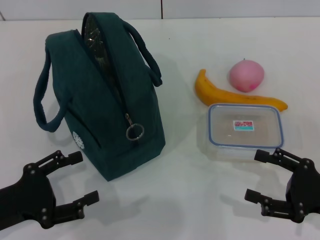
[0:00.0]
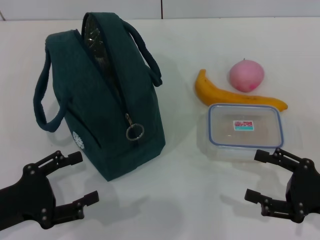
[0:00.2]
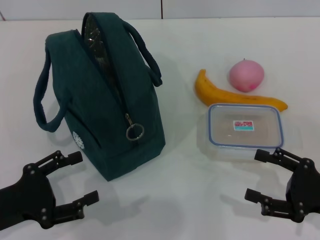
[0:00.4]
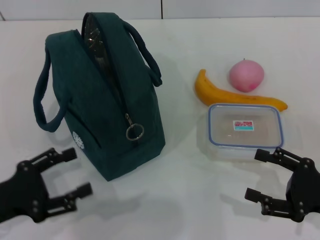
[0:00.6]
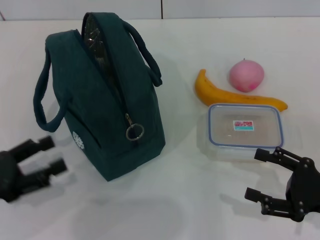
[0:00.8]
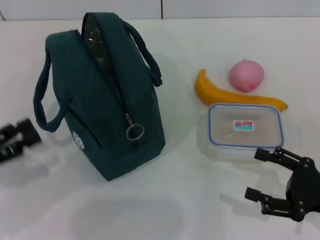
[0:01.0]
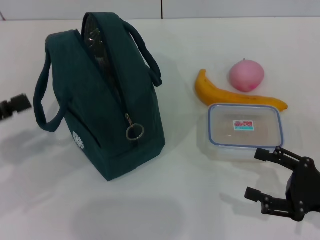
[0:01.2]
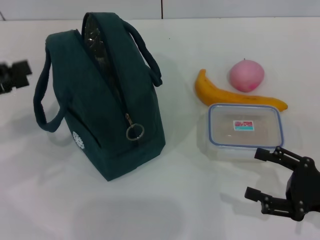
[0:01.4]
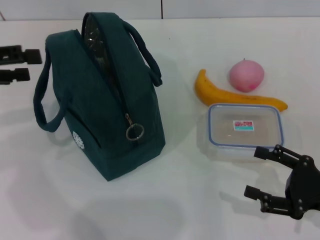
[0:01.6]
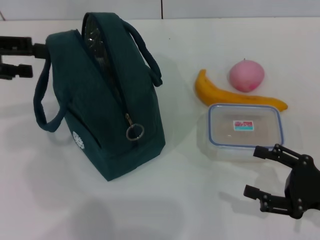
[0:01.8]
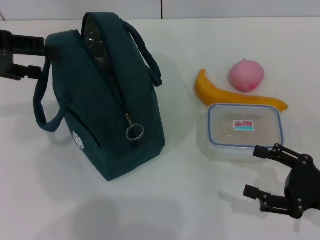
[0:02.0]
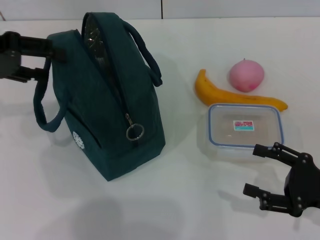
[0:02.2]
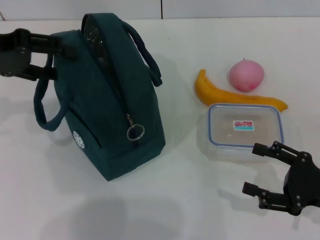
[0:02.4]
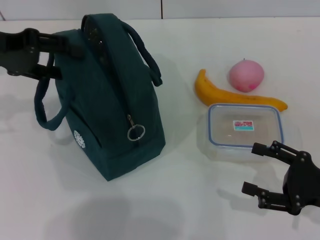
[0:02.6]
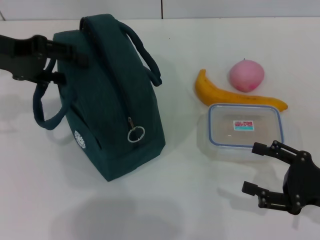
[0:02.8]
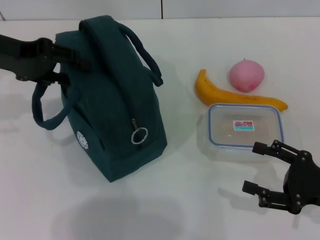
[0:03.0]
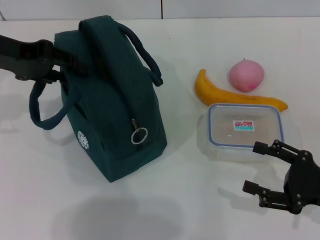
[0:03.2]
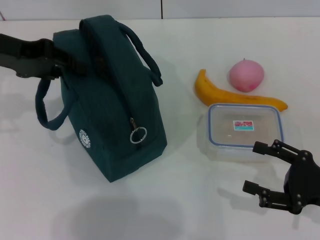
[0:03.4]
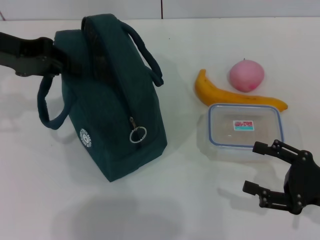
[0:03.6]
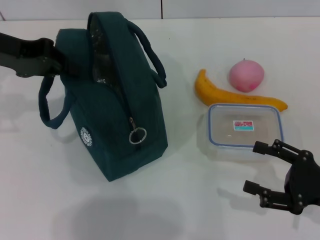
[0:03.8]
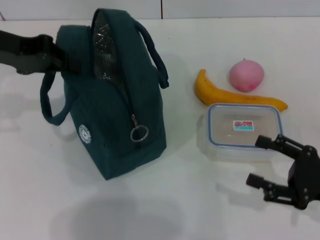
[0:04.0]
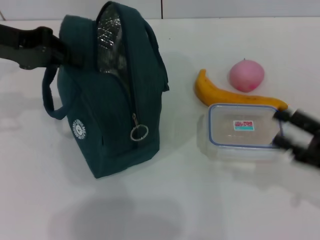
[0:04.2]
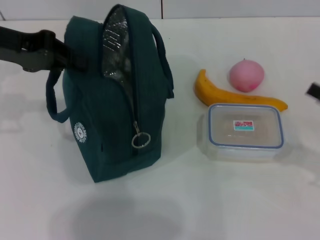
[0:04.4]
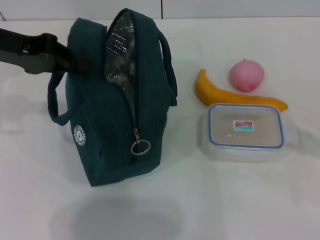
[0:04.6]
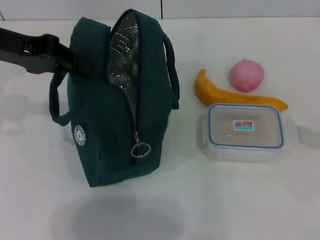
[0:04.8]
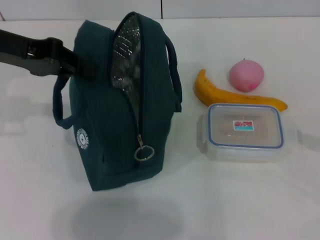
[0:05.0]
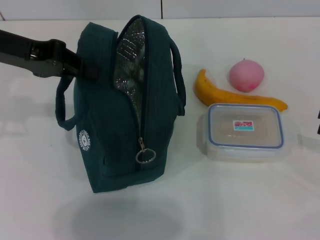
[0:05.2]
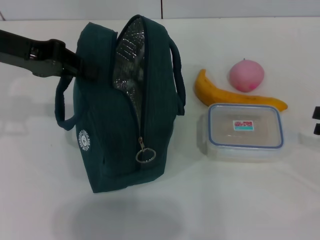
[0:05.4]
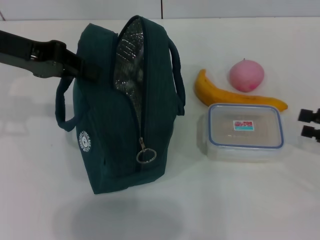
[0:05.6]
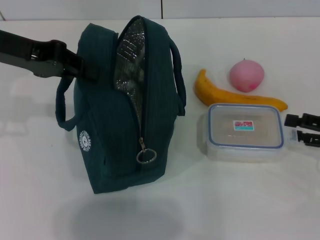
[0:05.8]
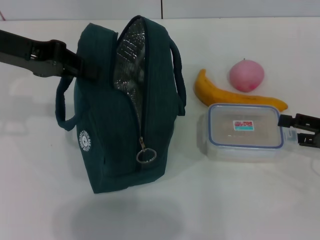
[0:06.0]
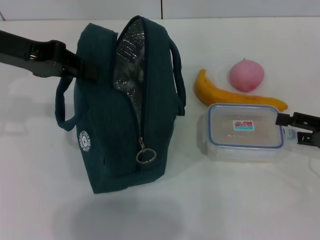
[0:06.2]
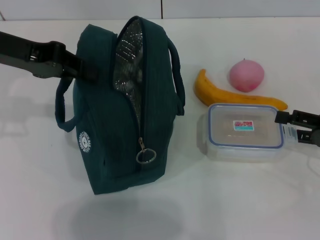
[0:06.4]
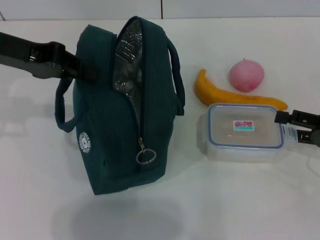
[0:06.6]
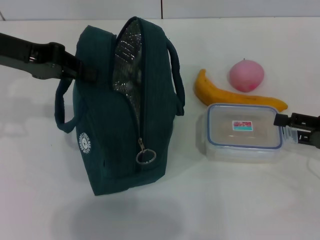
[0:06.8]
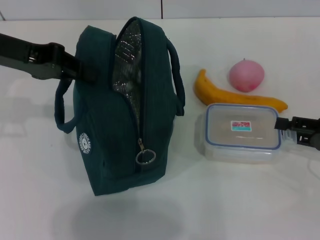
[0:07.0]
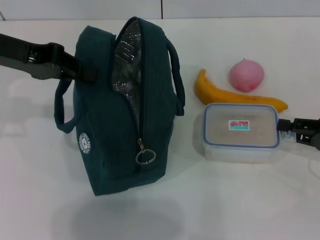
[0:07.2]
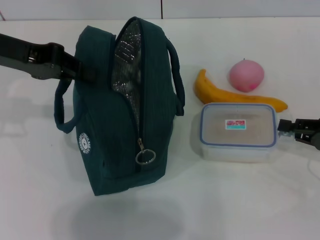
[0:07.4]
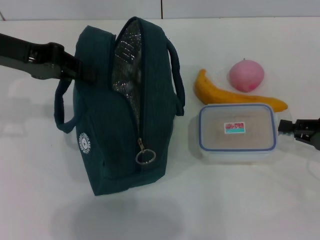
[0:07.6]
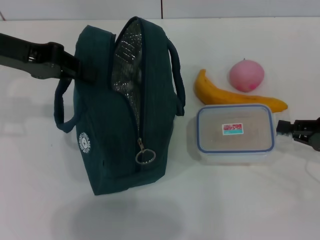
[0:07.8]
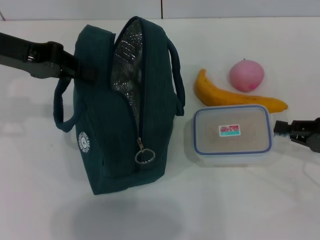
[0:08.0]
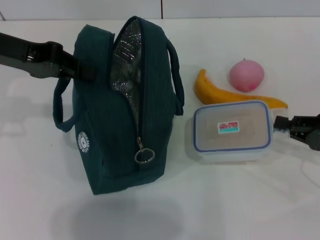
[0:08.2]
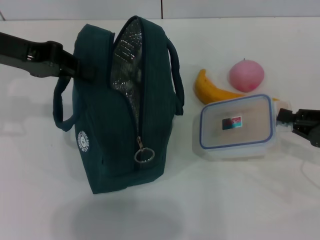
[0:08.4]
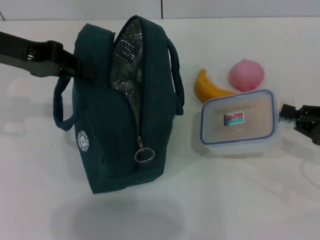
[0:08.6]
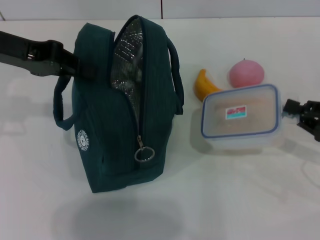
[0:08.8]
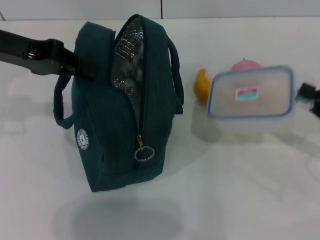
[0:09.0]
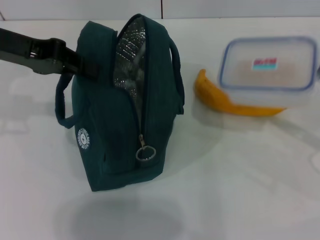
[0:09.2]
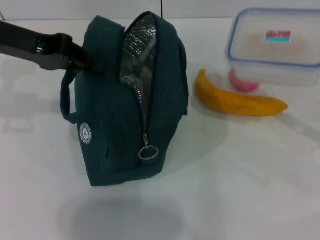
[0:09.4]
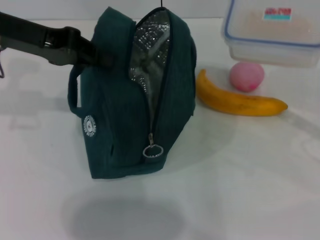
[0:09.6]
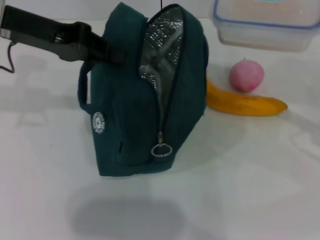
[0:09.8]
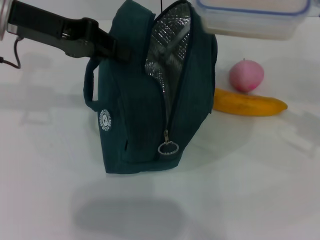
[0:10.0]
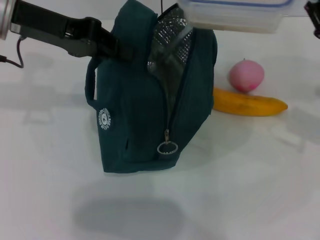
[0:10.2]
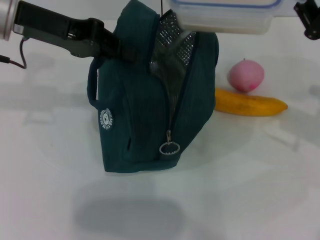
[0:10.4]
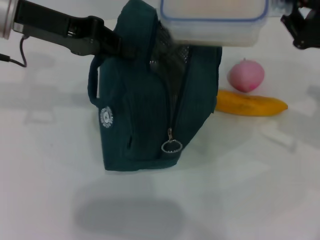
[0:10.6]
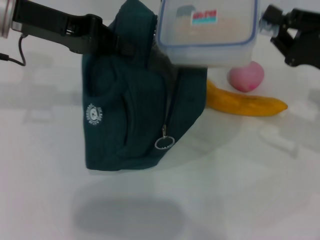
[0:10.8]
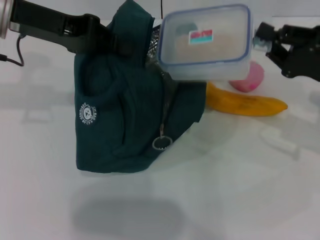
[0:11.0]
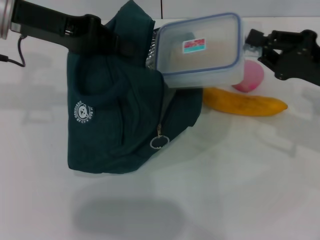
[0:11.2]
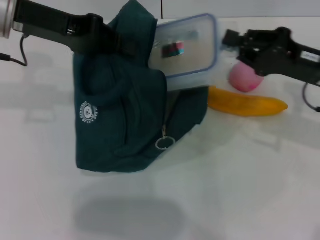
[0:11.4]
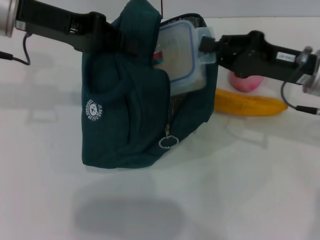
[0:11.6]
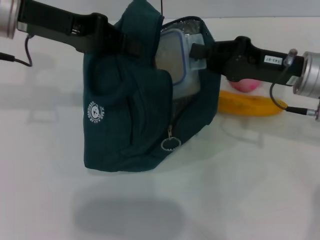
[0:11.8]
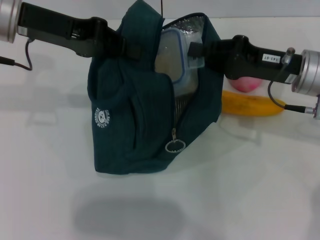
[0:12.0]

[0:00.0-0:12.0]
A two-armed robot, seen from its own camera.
Step, 0:00.0 to 0:03.8: Hold the lunch bag with your left hand.
Step, 0:04.0 to 0:07.6: Pick up the lunch box with your right hand.
0:00.0 to 0:01.6: The left gripper is displaced upward and forward by roughly 20 cm.
0:01.6 to 0:03.0: The left gripper is displaced to the right and forward by some 10 cm.
0:03.0 to 0:04.4: The right gripper goes roughly 5 cm upward. Meanwhile the left gripper closes up.
0:04.4 to 0:06.0: The right gripper is displaced forward by about 5 cm.
0:06.0 to 0:07.6: The right gripper closes.
0:09.0 to 0:10.4: The left gripper shifts by some 5 cm. Meanwhile the right gripper shifts approximately 10 cm upward, forward and to the left.
0:10.4 to 0:12.0: The right gripper travels to the left by about 10 cm.

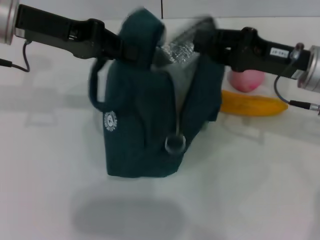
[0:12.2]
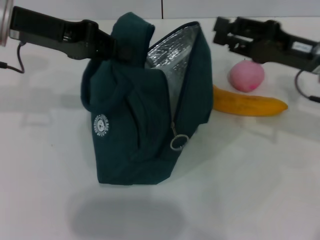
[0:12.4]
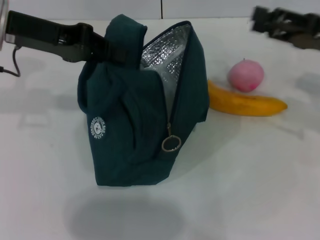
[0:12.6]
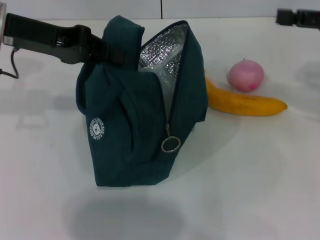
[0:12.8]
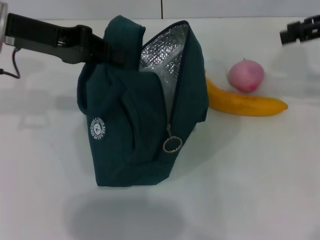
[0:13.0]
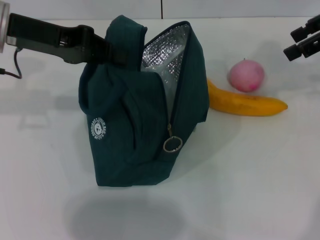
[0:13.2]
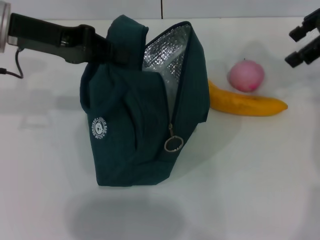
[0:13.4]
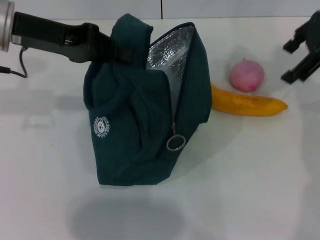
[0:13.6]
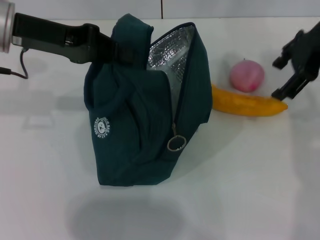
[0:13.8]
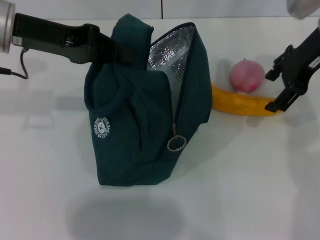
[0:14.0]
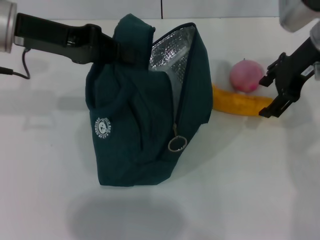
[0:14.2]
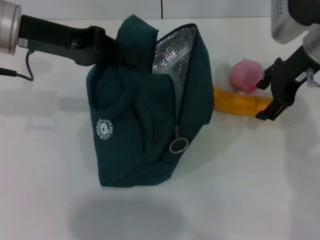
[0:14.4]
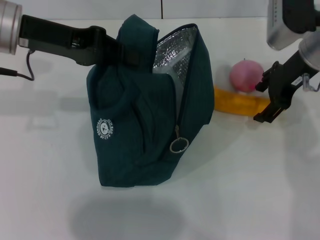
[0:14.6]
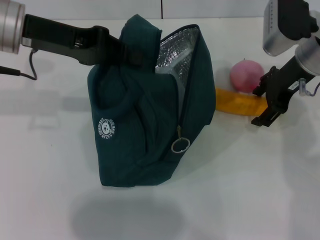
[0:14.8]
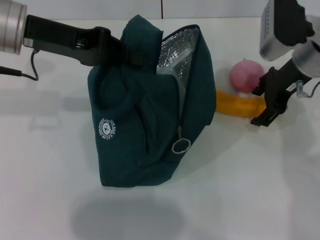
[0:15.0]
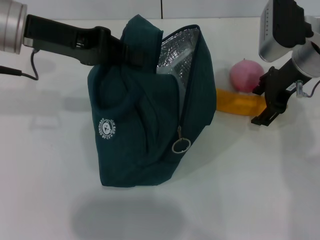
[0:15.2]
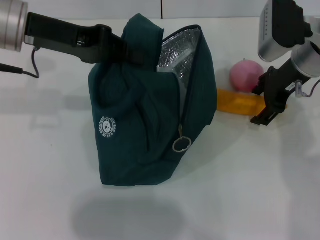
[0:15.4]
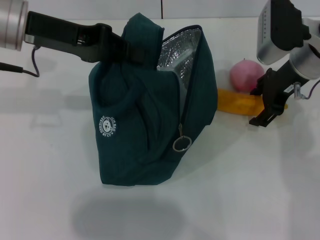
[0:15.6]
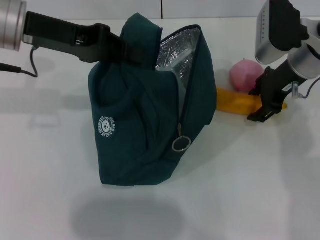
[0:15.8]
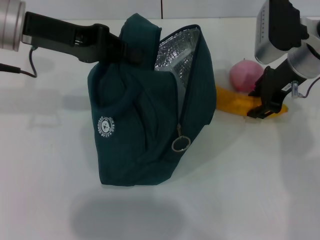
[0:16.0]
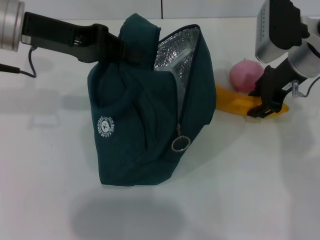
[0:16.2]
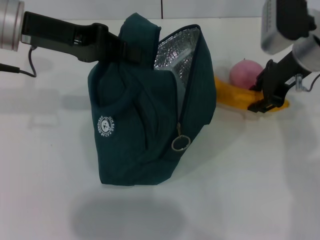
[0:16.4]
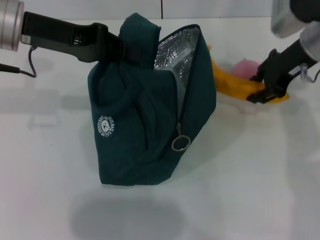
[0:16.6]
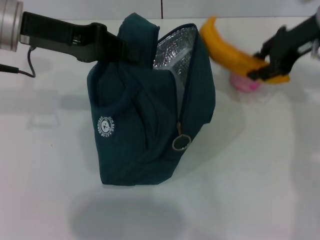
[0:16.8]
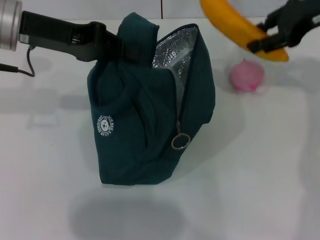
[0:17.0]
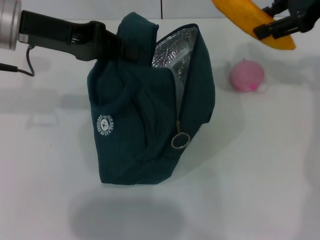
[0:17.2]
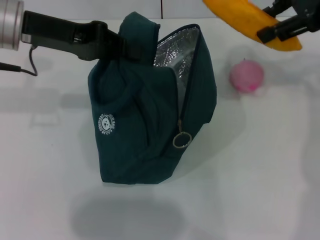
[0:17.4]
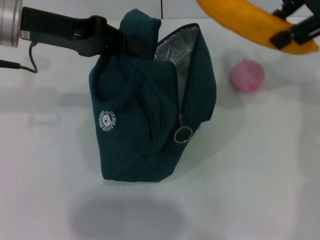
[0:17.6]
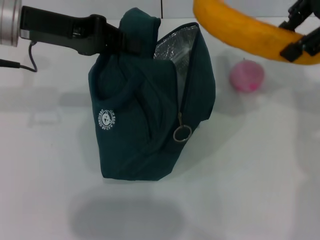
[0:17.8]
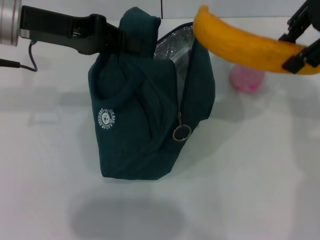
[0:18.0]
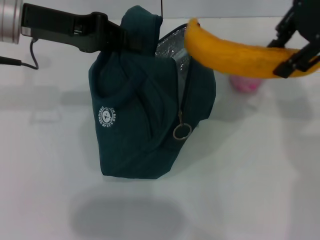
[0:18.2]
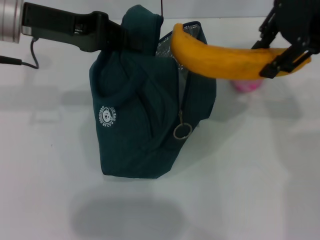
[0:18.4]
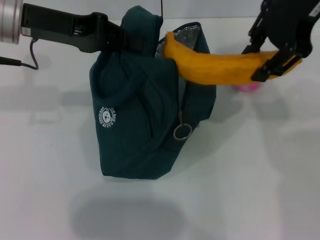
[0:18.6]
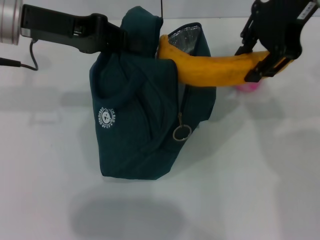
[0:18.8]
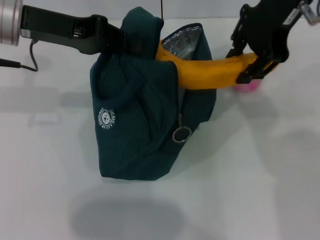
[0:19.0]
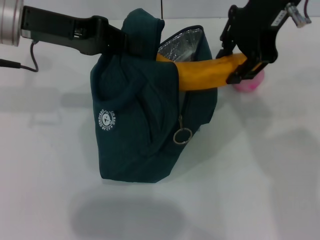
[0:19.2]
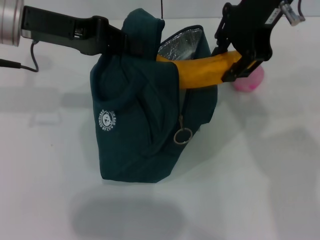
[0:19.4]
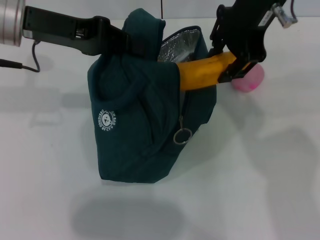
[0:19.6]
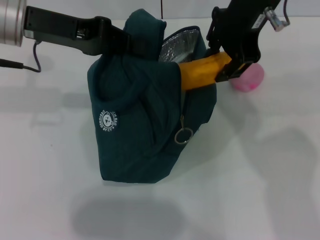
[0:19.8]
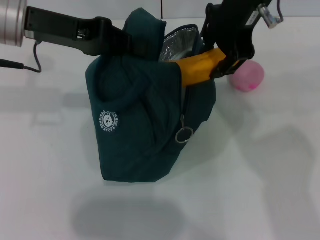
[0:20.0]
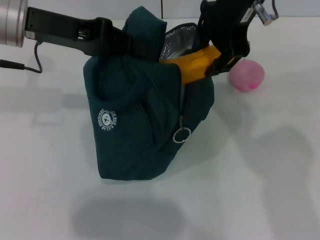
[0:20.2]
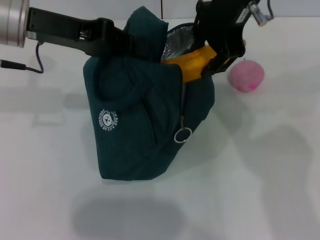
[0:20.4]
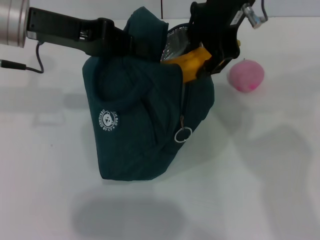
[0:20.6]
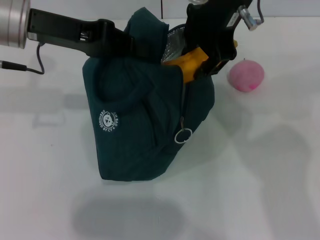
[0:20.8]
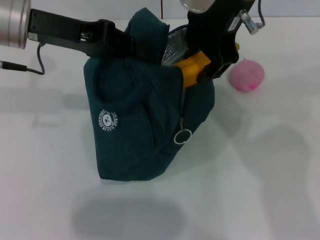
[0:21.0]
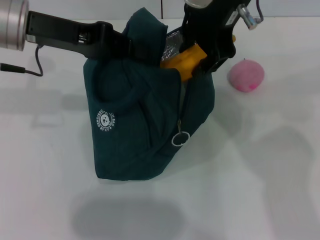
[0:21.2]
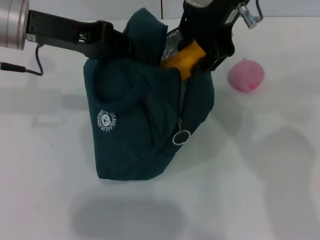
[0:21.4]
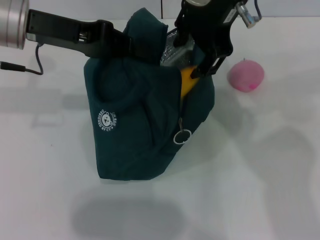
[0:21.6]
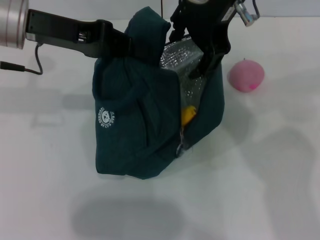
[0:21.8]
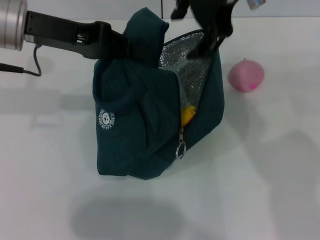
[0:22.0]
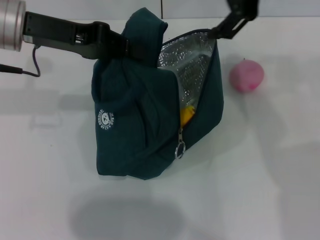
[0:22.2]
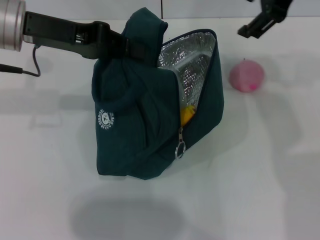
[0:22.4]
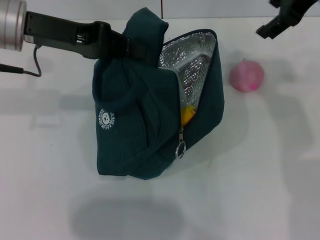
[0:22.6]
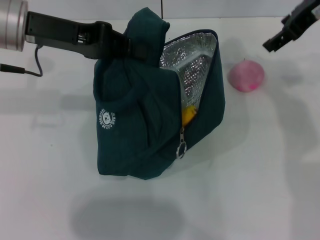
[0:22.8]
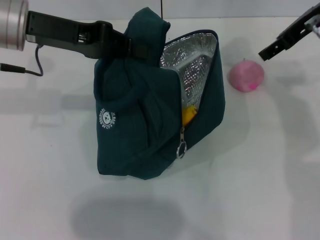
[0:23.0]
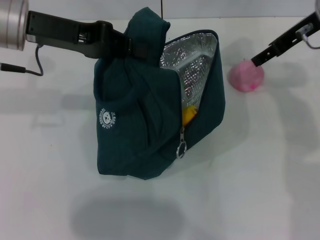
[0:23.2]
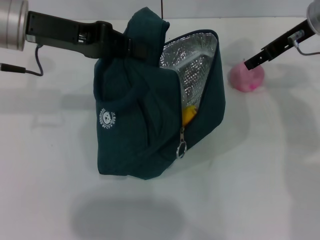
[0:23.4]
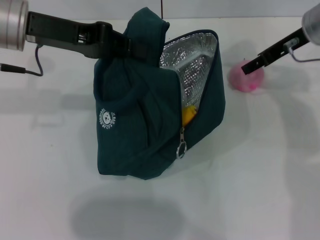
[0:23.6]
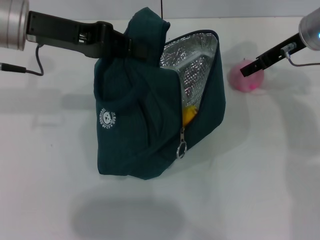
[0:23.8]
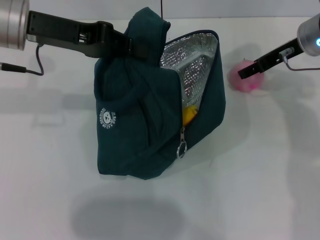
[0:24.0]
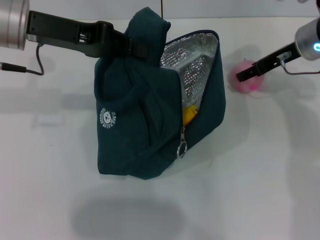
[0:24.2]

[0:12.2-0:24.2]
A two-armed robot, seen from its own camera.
Step, 0:12.6 to 0:16.2: Take the banana with your right hand.
Step, 0:16.4 to 0:21.6: Put the banana into the lunch bag with your right hand.
0:12.2 to 0:13.8: The right gripper shifts about 15 cm upward and forward, and opens up.
0:13.8 to 0:15.2: The right gripper goes some 10 cm downward.
0:15.2 to 0:16.6: The right gripper closes.
0:16.6 to 0:18.2: The right gripper travels upward by approximately 15 cm.
0:18.2 to 0:19.8: The right gripper shifts some 10 cm to the left.
0:19.8 to 0:21.2: The grippers stay close to where they were, moving slightly.
0:21.2 to 0:22.6: The right gripper moves to the right, about 15 cm, and opens its fingers.
0:22.6 to 0:24.2: The right gripper moves downward, roughly 15 cm.
